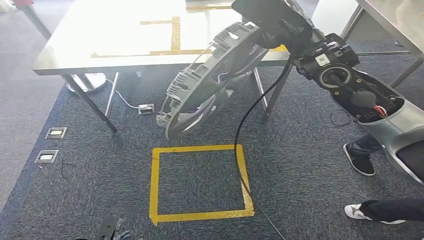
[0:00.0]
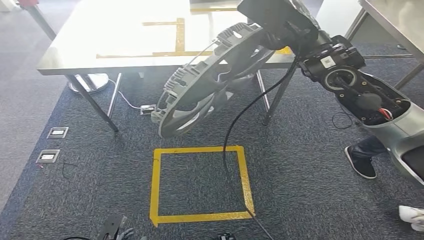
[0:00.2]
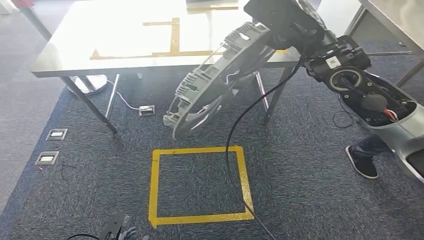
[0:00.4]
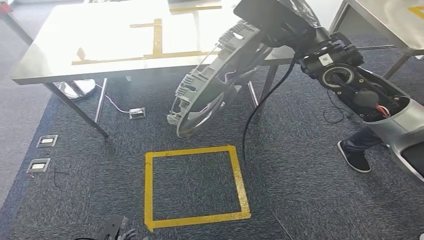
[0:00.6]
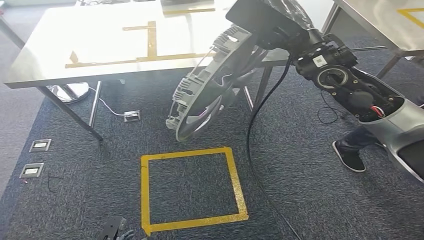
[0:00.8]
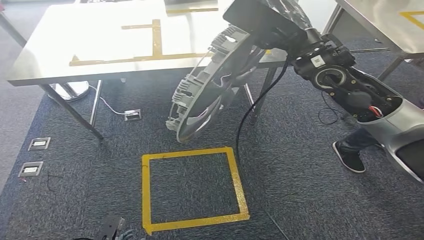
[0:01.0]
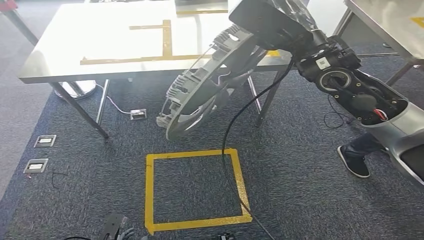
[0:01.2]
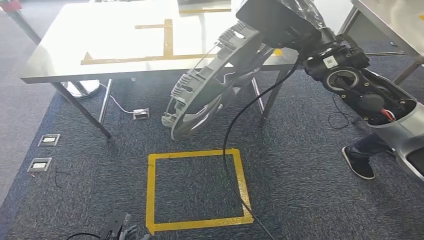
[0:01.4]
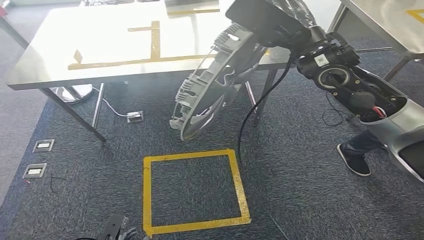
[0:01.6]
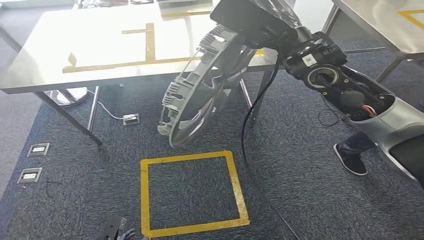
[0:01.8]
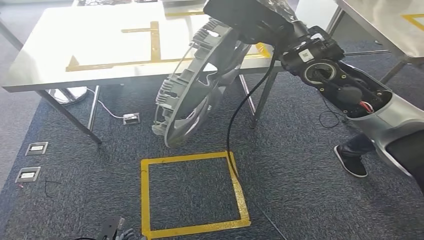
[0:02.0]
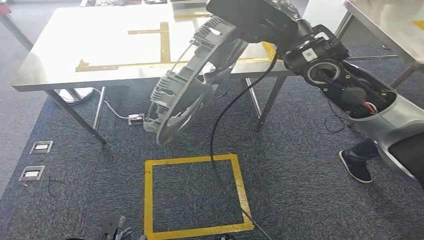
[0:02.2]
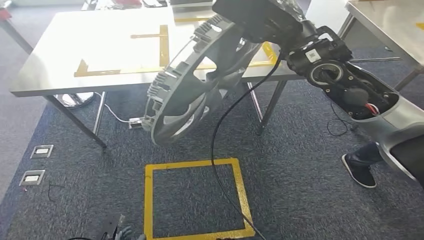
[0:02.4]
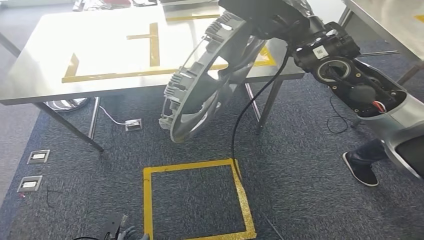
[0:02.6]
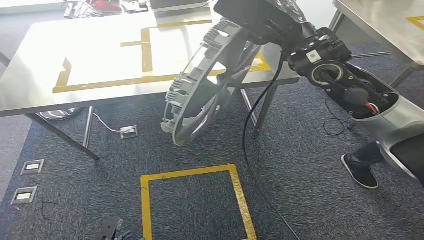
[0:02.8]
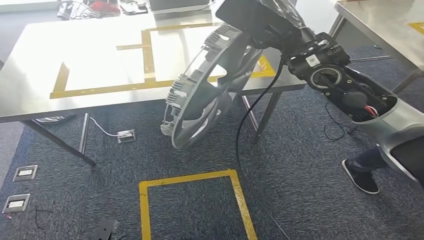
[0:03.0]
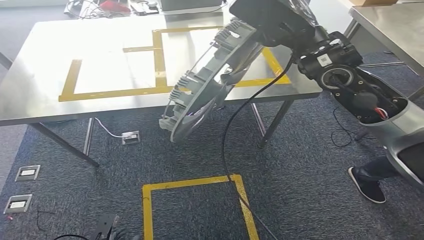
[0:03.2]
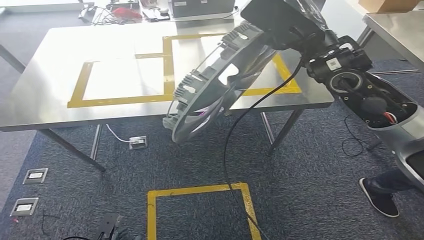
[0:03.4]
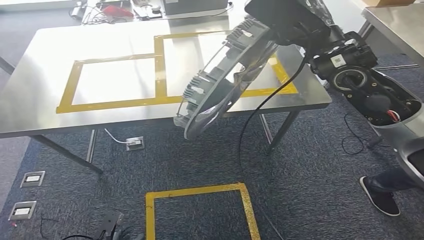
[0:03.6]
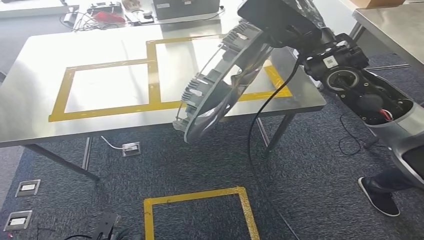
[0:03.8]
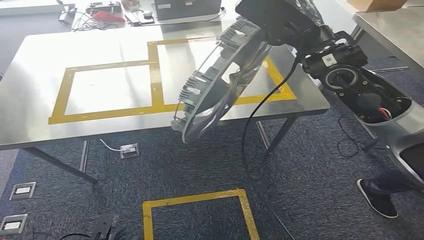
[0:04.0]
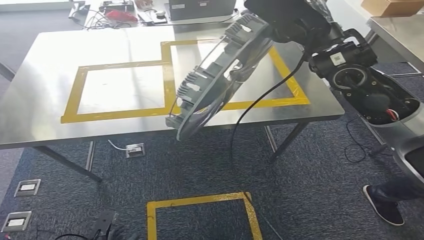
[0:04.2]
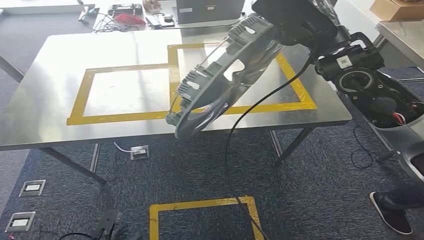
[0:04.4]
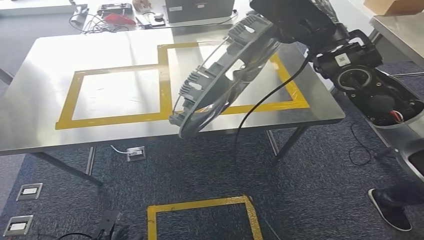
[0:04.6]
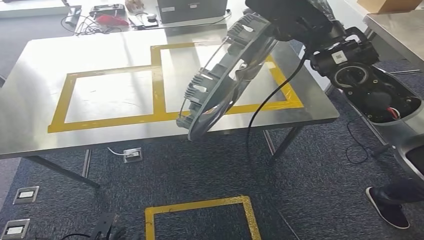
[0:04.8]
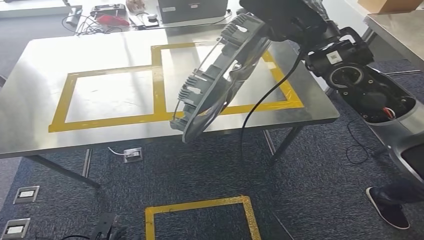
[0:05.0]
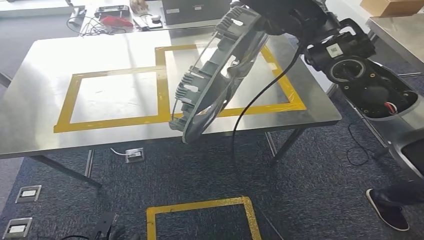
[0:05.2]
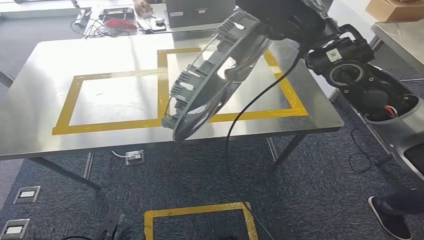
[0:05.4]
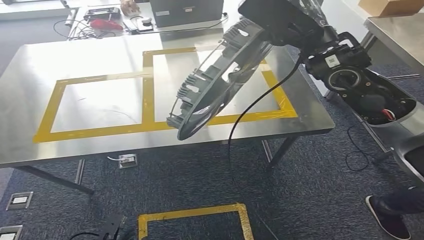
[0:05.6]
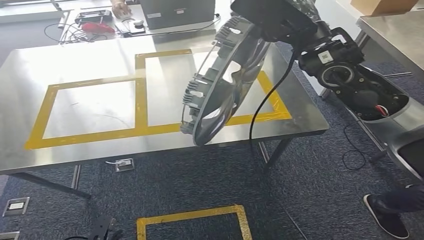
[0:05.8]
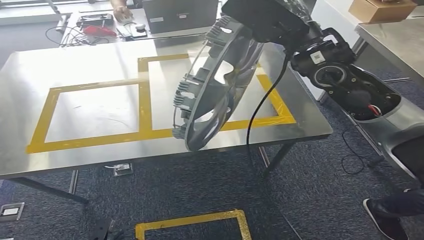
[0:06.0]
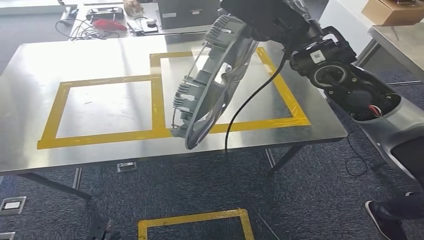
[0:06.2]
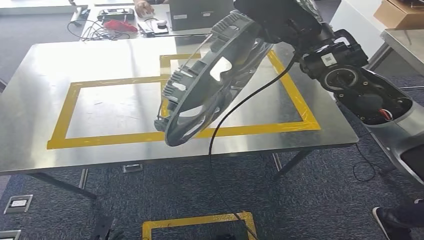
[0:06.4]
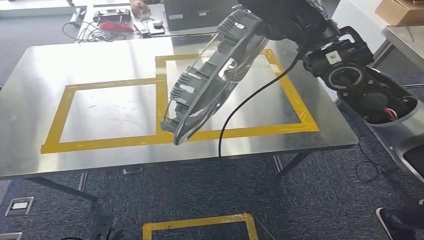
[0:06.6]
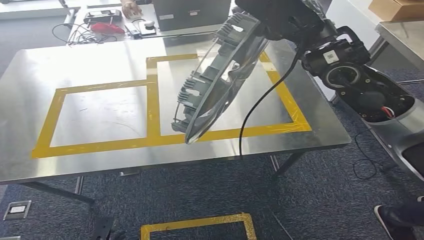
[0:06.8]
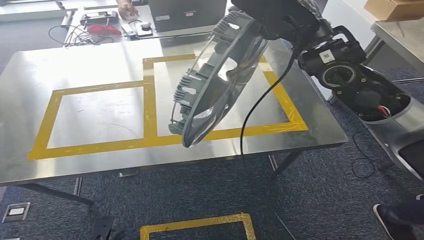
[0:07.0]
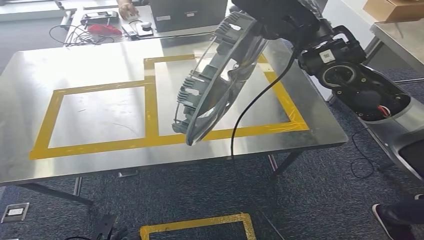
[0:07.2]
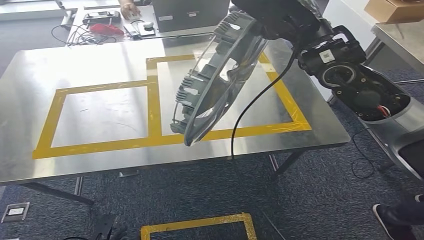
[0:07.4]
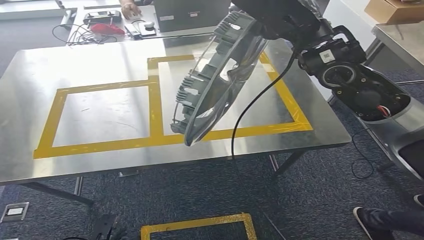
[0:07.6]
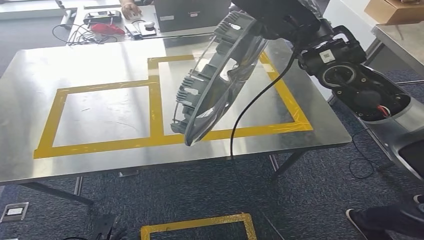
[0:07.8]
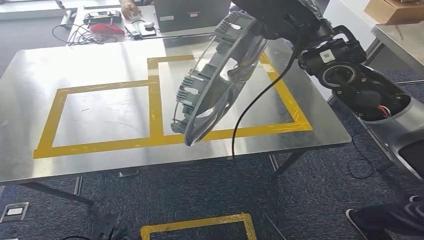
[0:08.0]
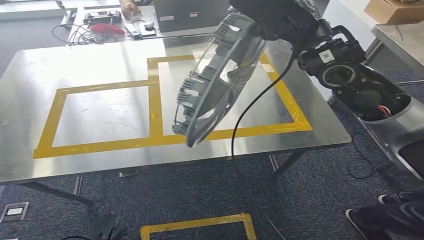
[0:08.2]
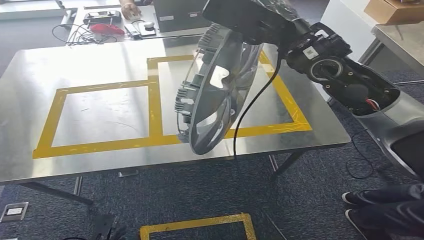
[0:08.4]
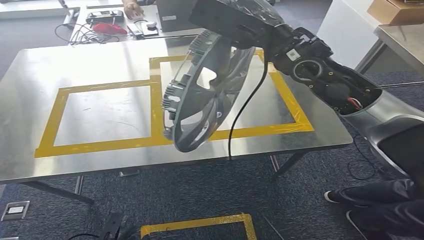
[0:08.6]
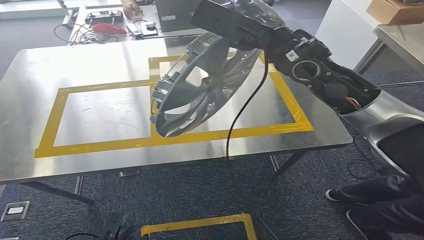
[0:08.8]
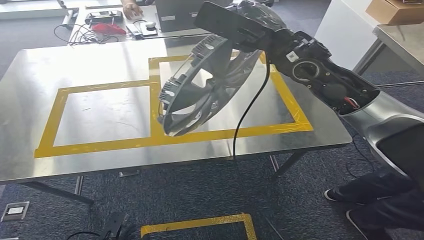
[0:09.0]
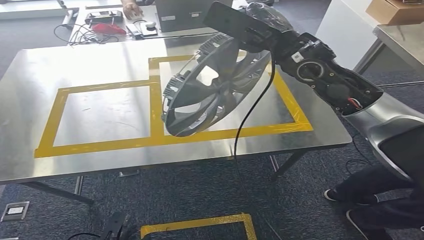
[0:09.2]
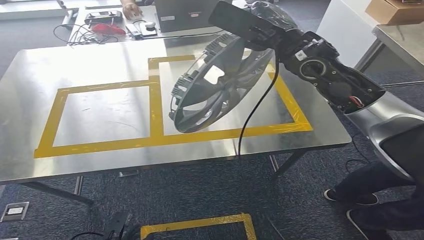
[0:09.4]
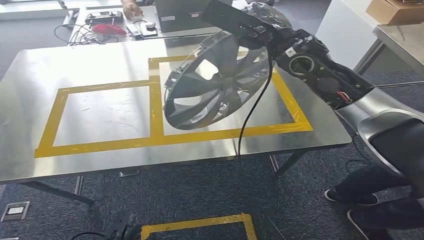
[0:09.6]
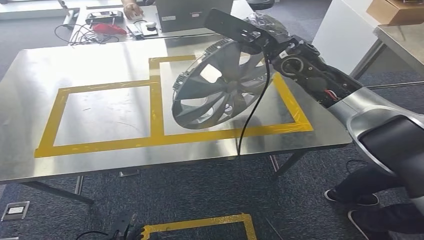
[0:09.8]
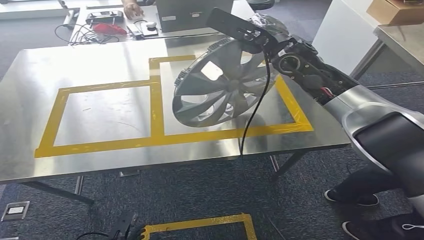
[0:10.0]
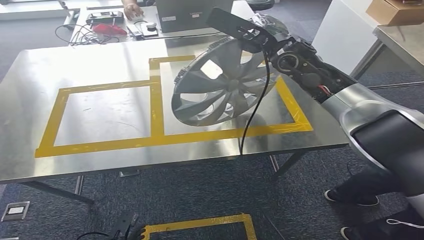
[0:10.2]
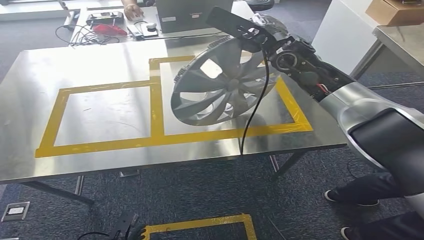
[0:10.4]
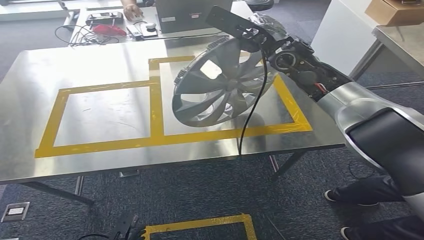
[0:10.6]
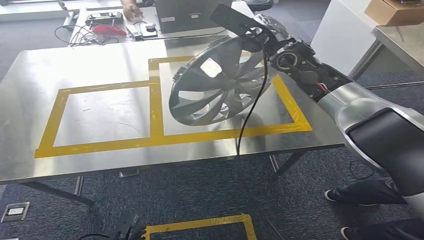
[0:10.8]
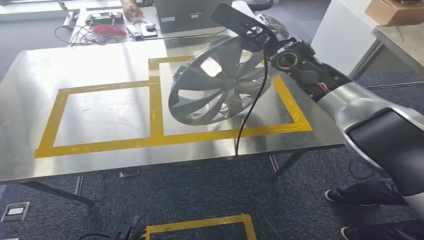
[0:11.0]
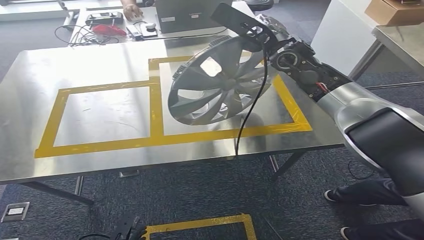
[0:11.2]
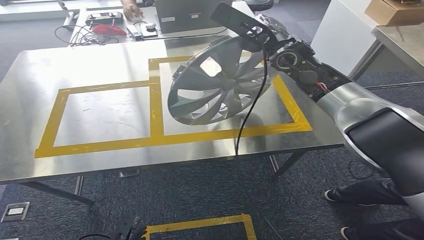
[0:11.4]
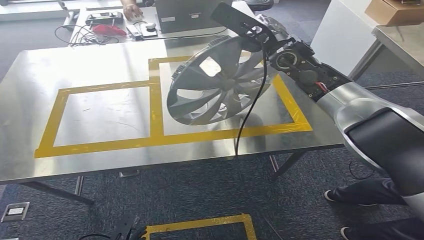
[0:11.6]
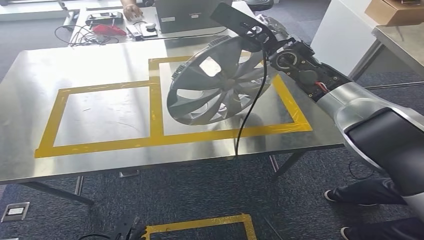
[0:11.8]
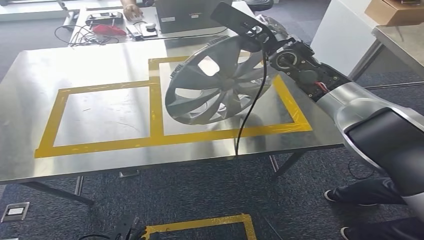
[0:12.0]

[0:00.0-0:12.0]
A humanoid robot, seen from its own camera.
0:07.6 to 0:09.0: The right hand ends up approximately 5 cm from where it was.
0:09.0 to 0:10.4: The right hand moves forward, approximately 5 cm.
0:10.4 to 0:12.0: There are only small adjustments of the hands.

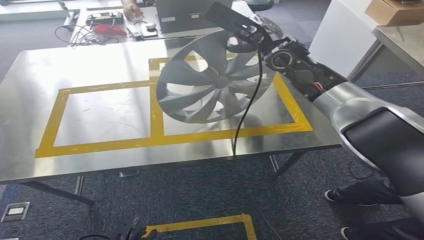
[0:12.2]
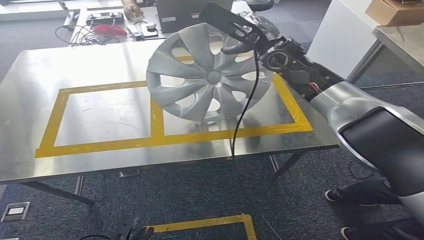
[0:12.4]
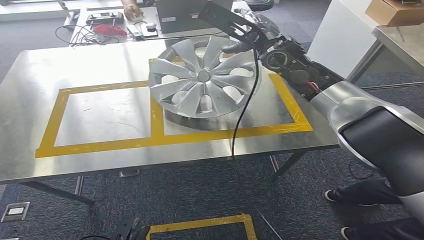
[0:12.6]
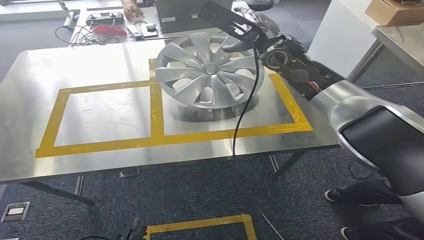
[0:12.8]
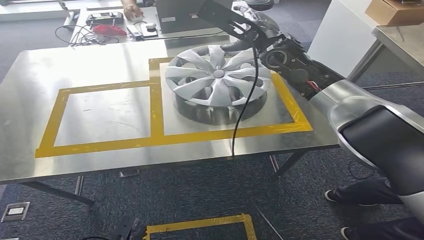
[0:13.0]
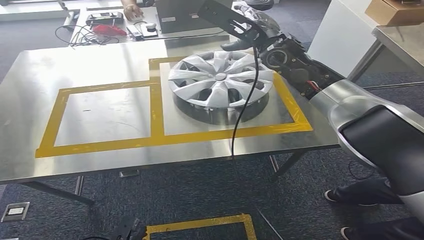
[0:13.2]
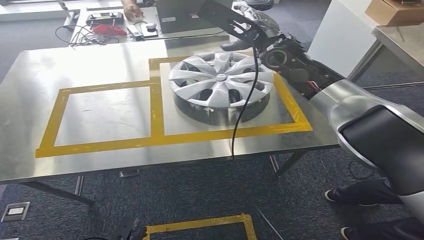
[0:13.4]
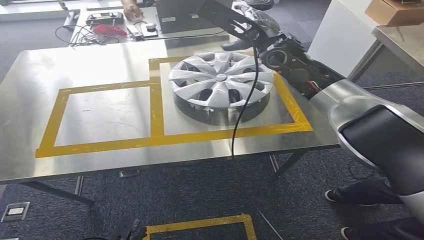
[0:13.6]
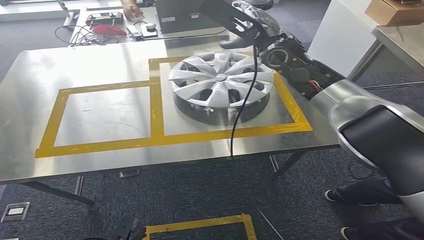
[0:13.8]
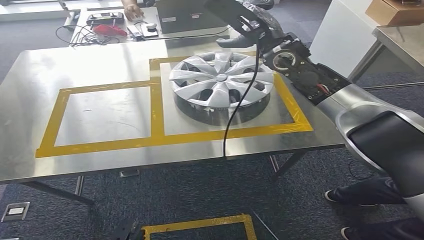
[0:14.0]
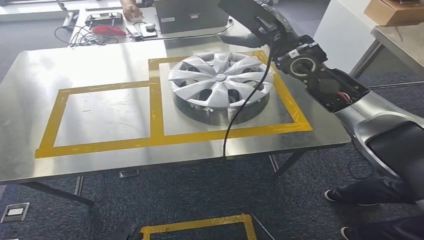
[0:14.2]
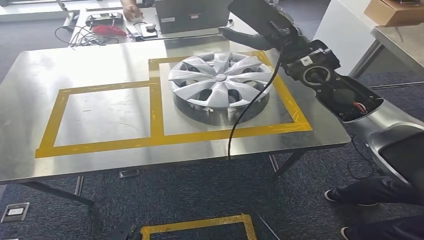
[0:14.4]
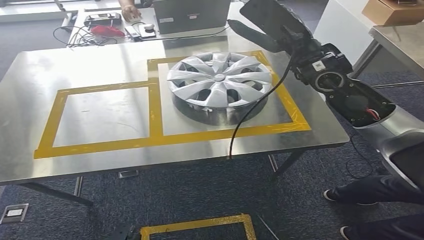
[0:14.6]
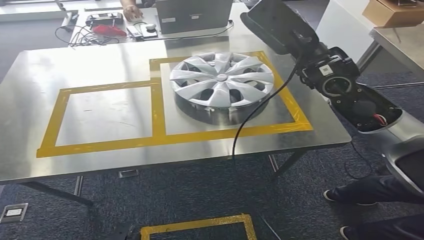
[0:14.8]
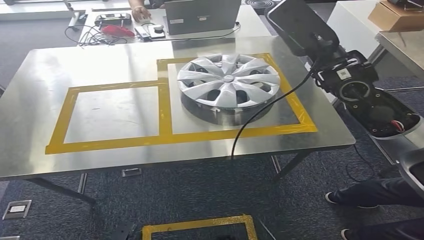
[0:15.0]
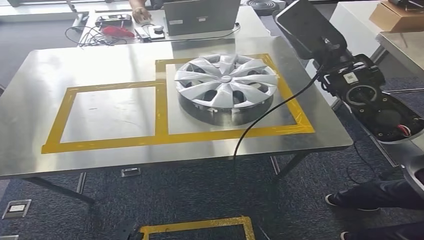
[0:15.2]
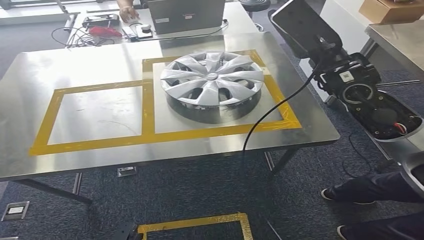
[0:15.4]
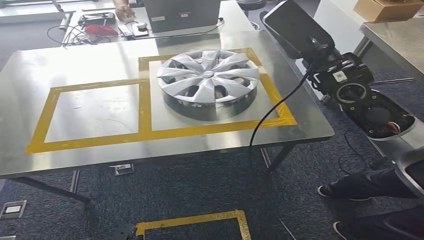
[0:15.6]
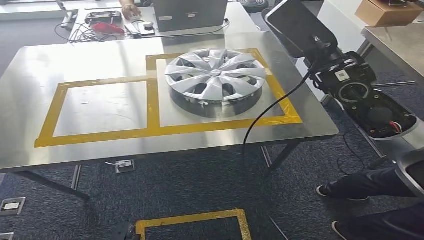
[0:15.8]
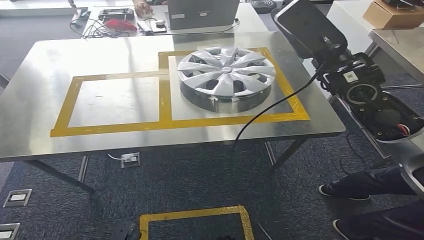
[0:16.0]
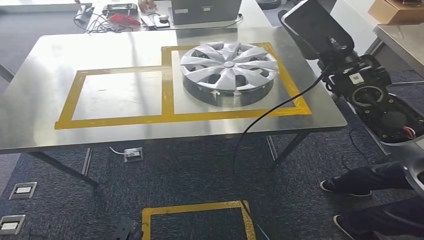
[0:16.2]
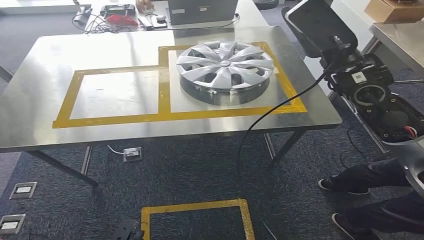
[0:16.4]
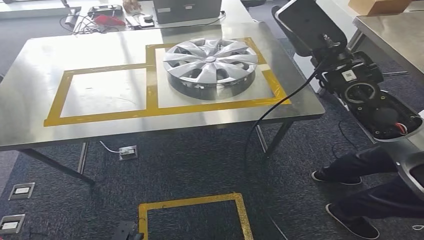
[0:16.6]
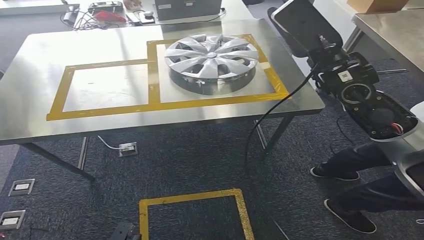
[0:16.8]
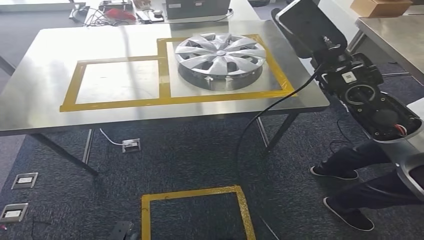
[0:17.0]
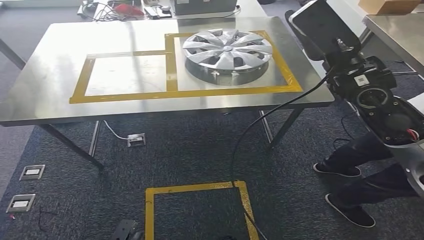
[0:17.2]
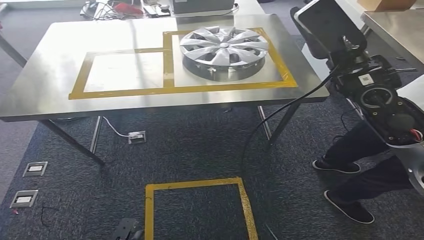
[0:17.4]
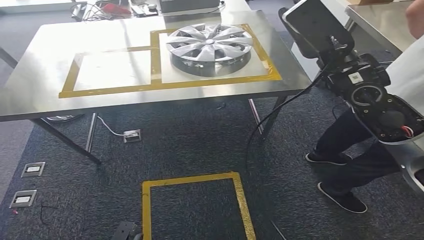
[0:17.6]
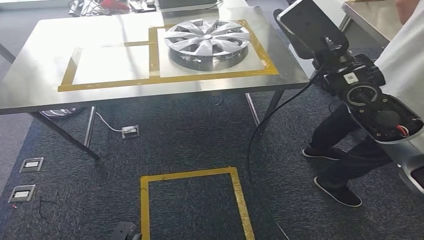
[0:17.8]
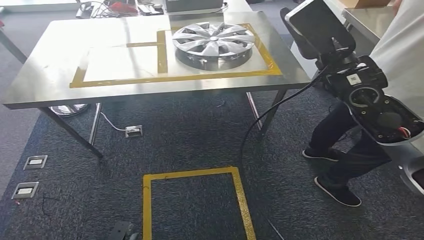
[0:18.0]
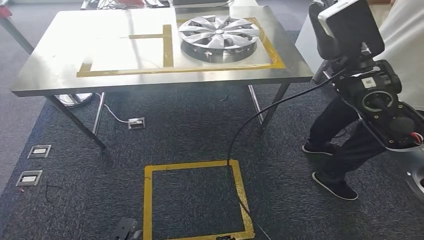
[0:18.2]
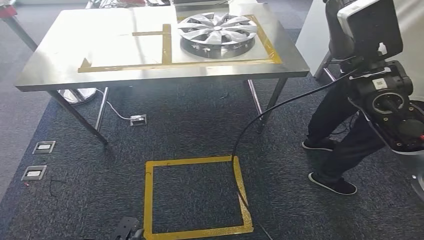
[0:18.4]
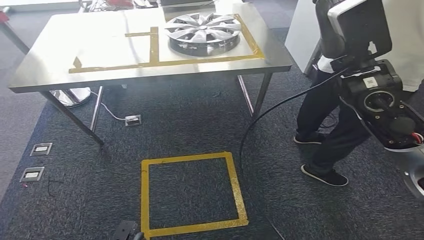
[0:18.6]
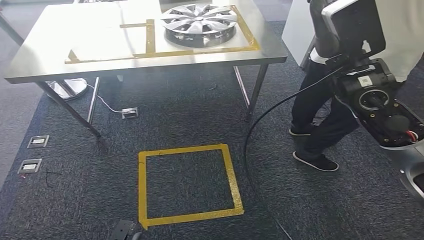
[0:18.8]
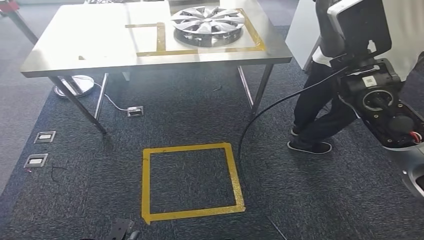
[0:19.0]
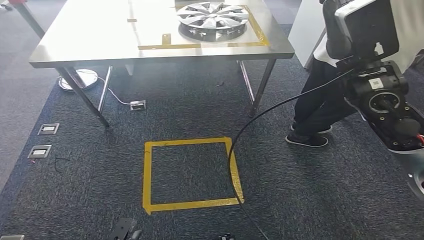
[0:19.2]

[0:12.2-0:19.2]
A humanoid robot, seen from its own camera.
Step, 0:12.2 to 0:14.2: Insert the small component into the corresponding slot on the workbench.
0:12.2 to 0:13.6: There are only small adjustments of the hands.
